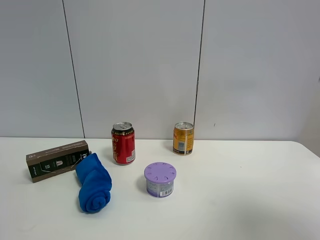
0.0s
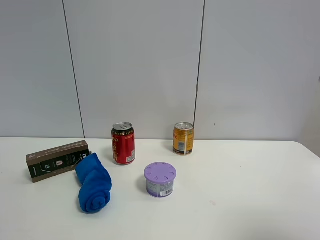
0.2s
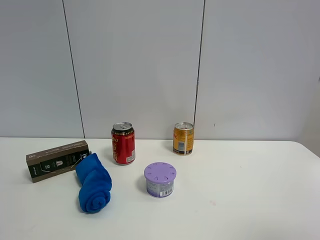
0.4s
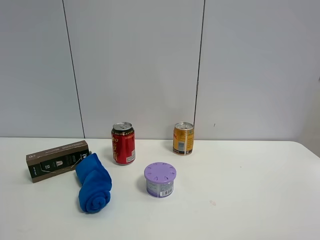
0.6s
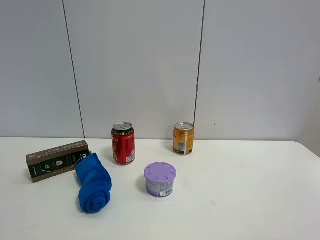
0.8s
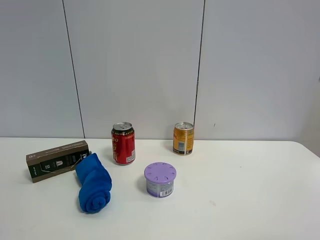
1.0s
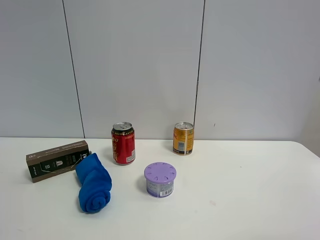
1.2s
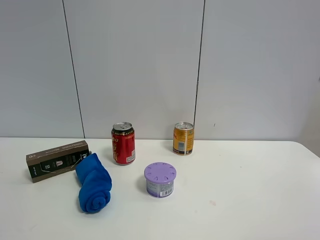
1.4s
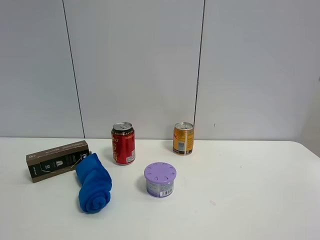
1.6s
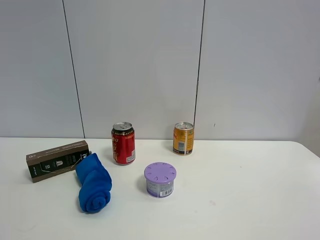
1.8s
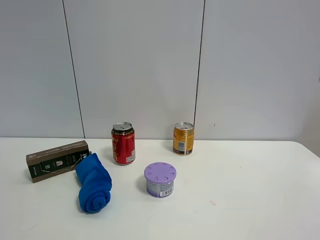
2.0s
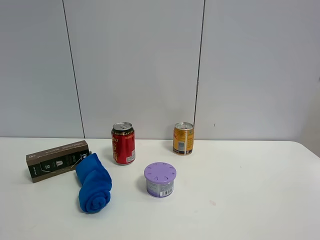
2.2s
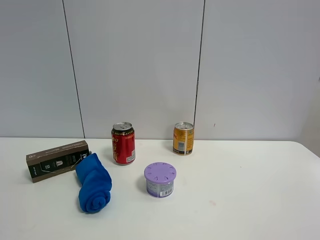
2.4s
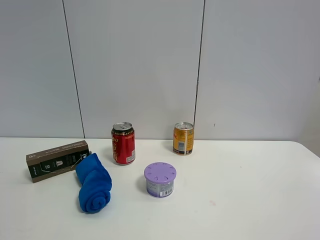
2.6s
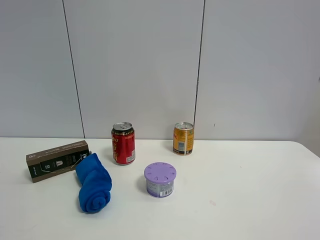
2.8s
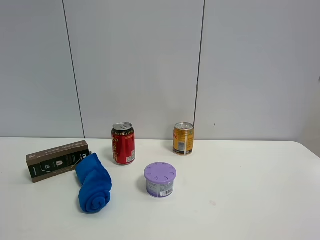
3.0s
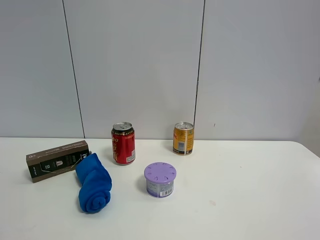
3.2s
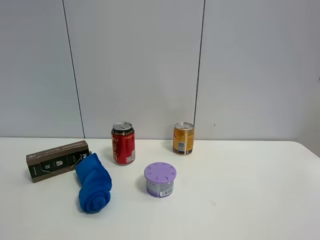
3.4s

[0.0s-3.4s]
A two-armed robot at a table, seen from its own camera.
Task of the whole recording: the gripper move the object.
0.0s to 1.6s: The right gripper shifts roughly 15 cm backward and downward.
1.6s to 3.4s: The two grippers keep their place.

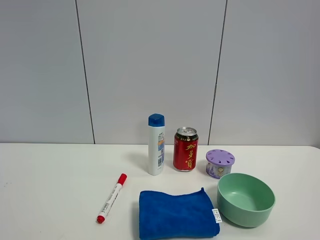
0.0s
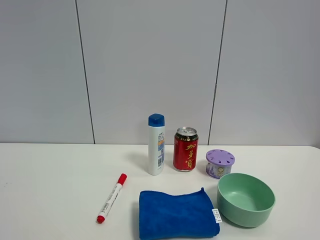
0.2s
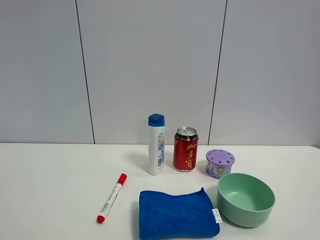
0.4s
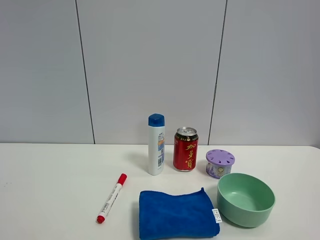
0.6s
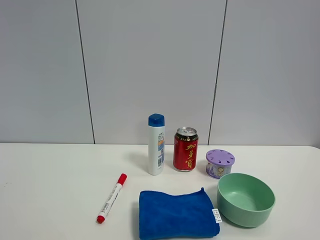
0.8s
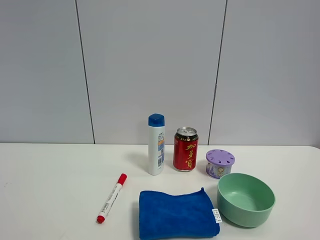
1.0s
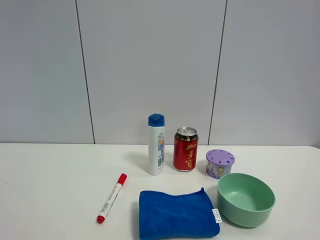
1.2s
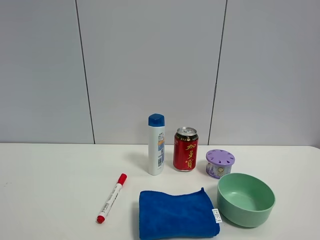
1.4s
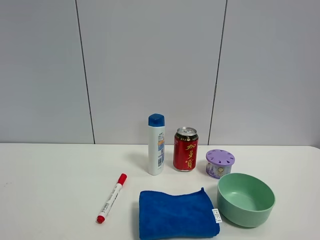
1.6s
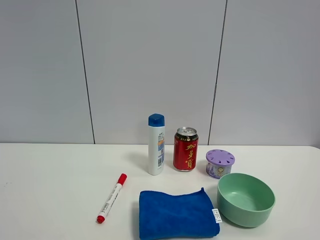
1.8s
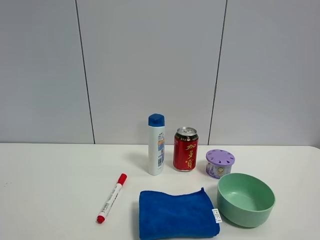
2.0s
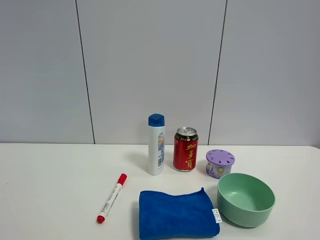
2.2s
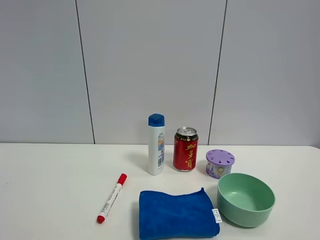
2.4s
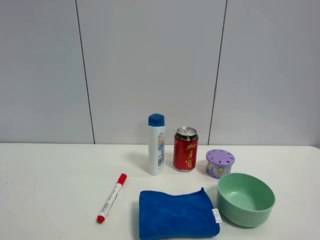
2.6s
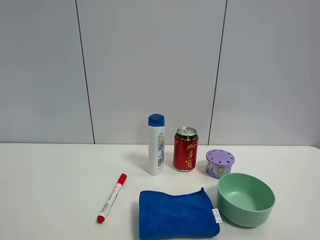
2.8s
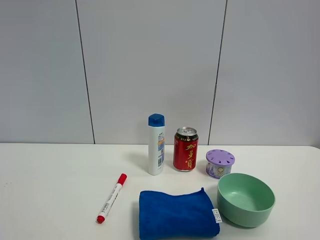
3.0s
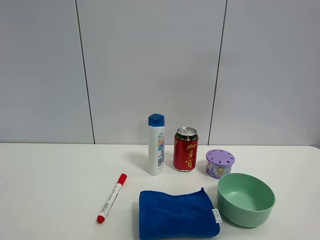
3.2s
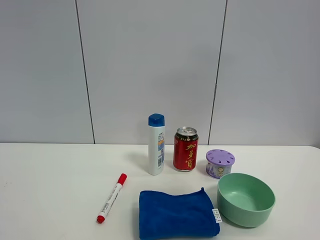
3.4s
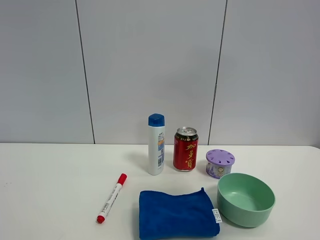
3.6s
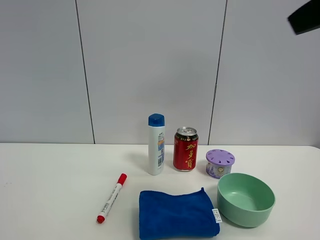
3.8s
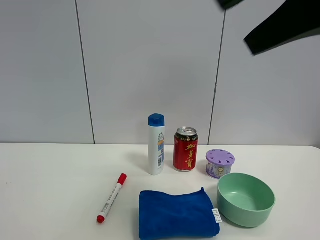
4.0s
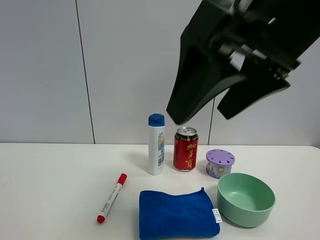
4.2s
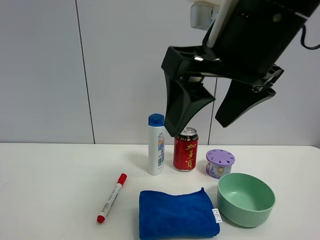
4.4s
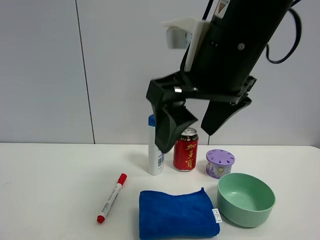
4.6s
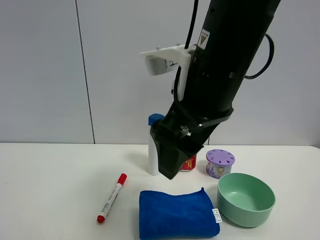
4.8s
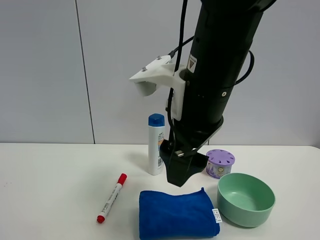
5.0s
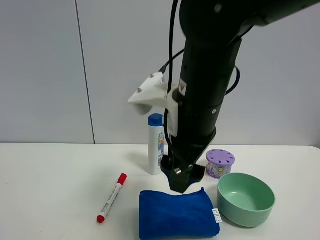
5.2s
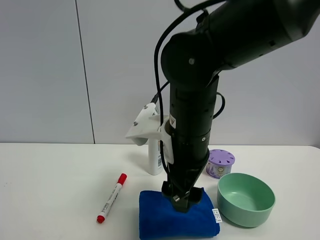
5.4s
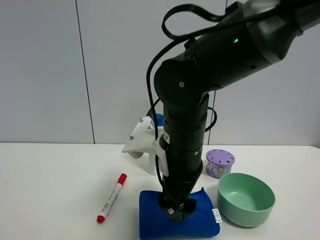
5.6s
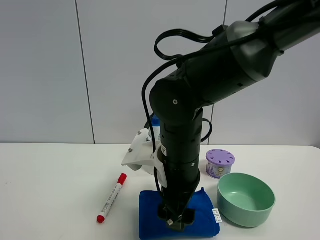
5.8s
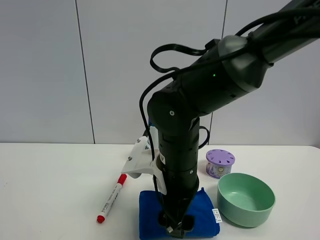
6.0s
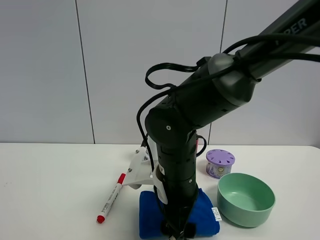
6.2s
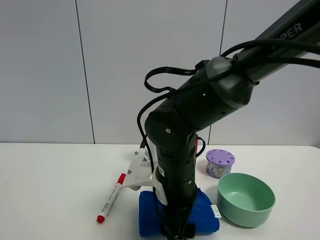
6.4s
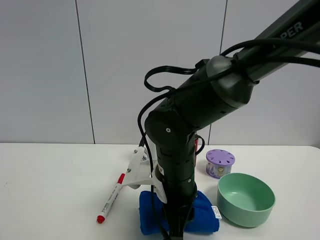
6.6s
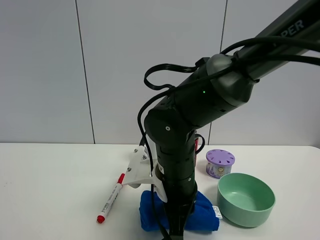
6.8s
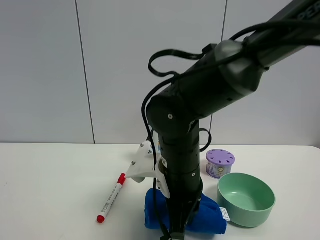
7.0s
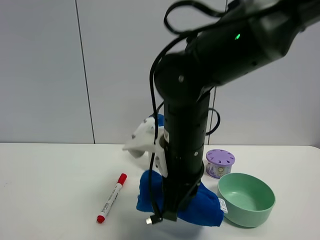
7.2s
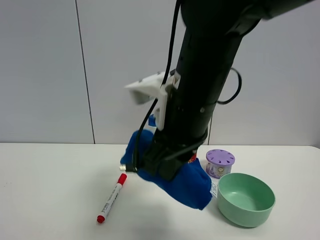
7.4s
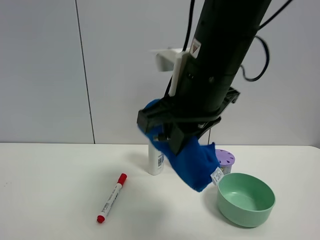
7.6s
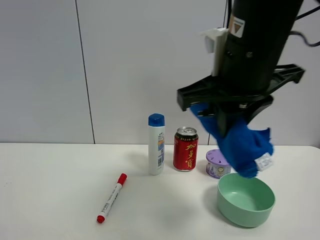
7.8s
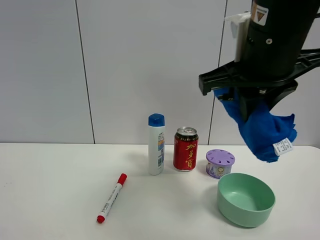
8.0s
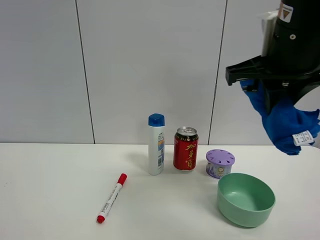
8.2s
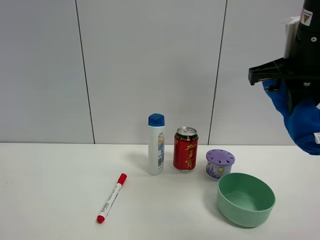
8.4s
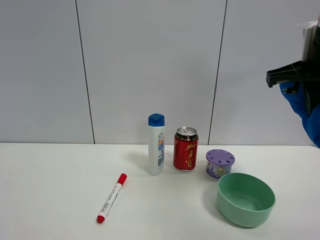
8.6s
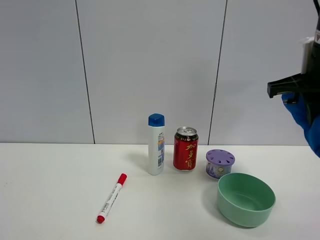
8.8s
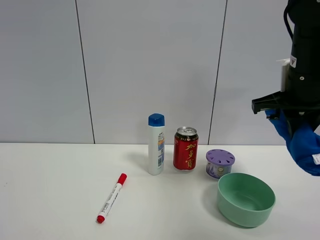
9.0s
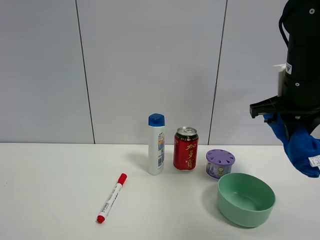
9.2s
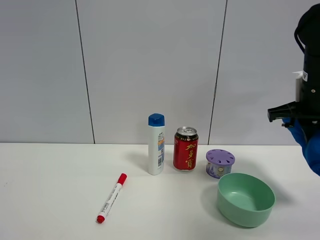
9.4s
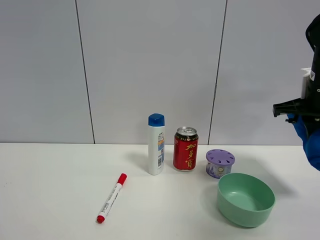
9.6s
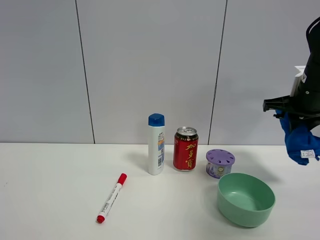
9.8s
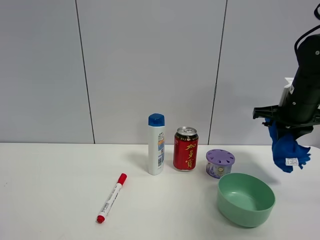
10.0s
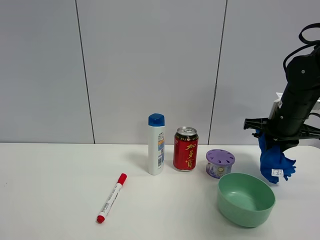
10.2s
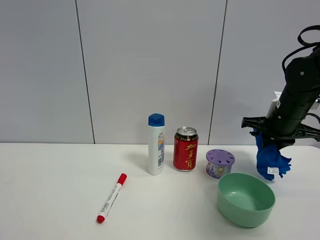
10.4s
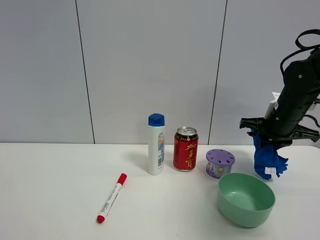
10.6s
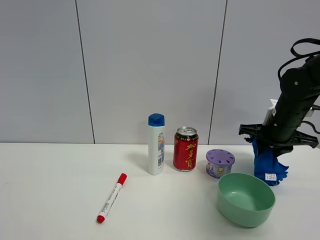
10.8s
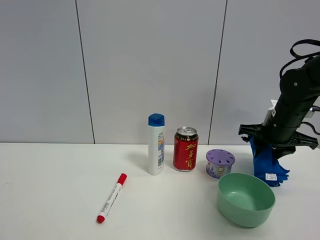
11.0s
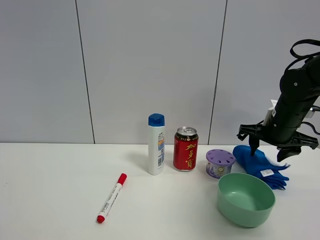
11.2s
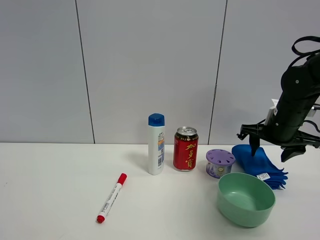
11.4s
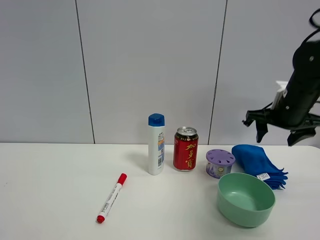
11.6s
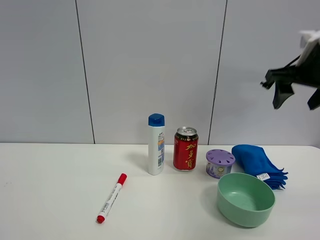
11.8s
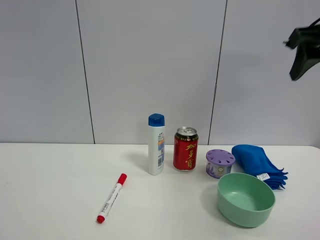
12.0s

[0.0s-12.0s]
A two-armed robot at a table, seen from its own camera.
Task of the whole recording: the gripper move the object.
Step, 0.0s to 6.8s: Grasp the blue towel with the right gripper.
Step, 7.0s to 11.2s: Place the blue towel on the table with the right gripper.
0.0s to 1.6s: Both grippers stay about where they are.
1.6s to 3.0s: The right gripper goes some 15 cm upward.
3.0s to 4.4s: The right gripper travels to the left, forward and downward by approximately 25 cm.
4.4s to 6.0s: The right gripper travels downward by roughly 20 cm.
6.0s to 7.6s: The right gripper goes approximately 15 cm upward, and closes its fingers.
7.6s to 9.0s: The right gripper shifts some 20 cm to the right and forward.
9.0s to 10.4s: The right gripper shifts roughly 10 cm downward and forward.
10.4s to 12.0s: The right gripper goes some 25 cm upward and backward, and opens up.

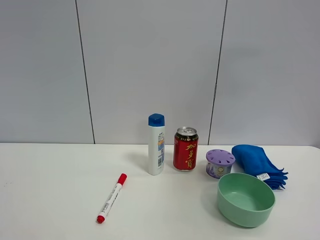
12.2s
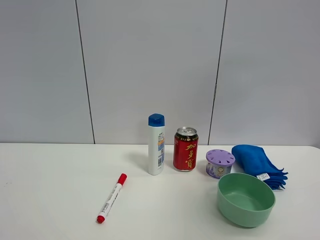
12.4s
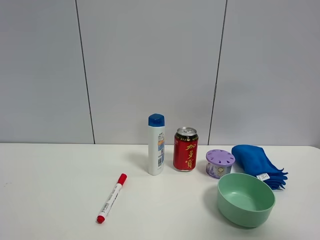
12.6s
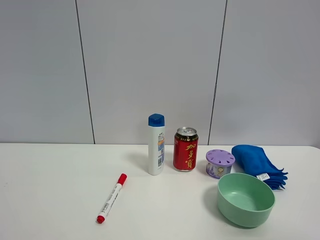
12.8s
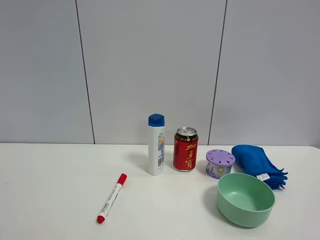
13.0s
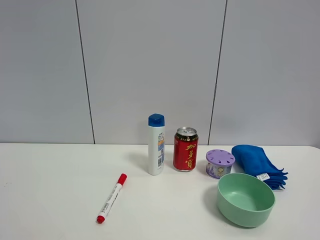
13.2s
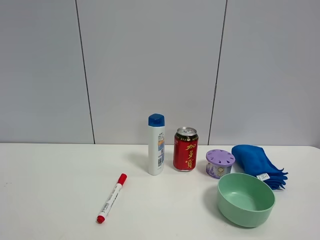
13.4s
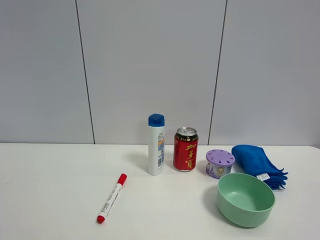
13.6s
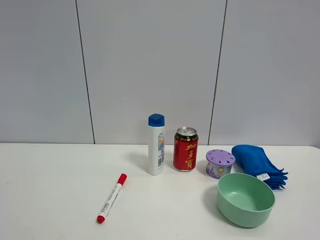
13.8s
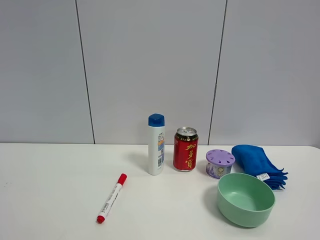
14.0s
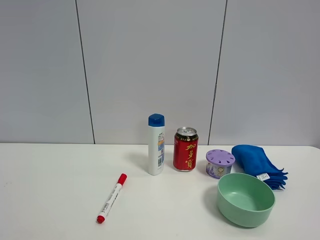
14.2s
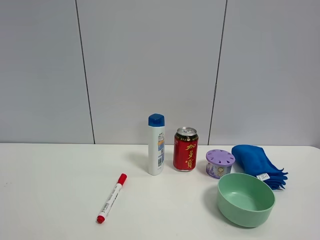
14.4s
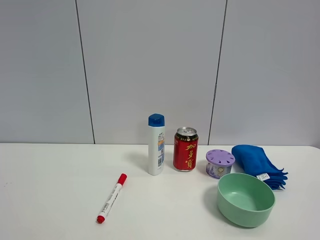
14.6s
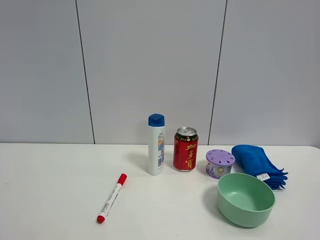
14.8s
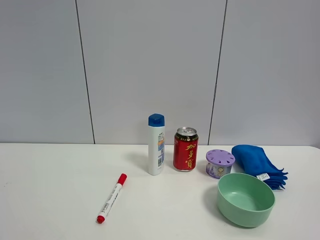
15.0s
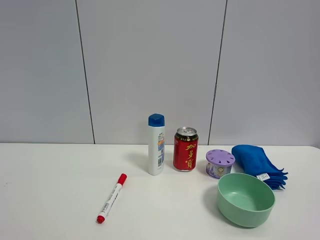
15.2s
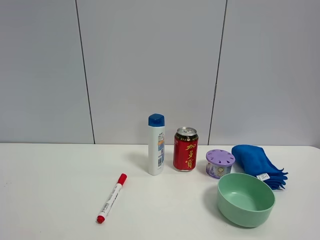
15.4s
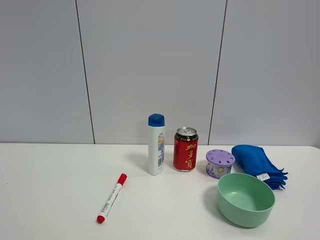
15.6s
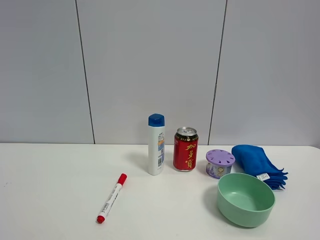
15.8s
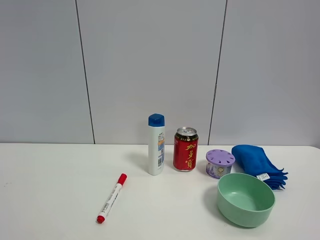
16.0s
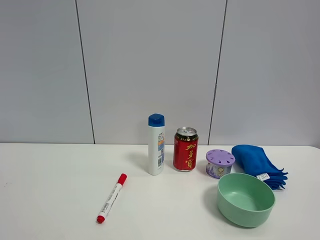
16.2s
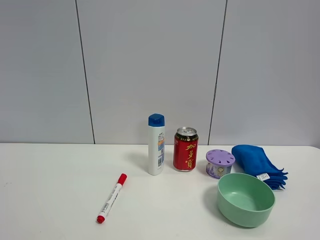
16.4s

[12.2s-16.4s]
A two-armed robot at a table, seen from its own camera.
Task of the whole recording: the gripper move the object.
12.2s to 13.6s: The right gripper heads backward and downward, covering about 25 cm.
13.6s to 16.4s: Both grippers stay put.

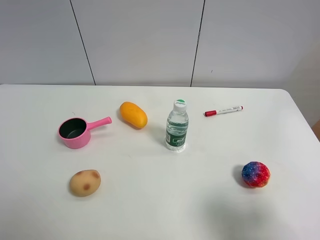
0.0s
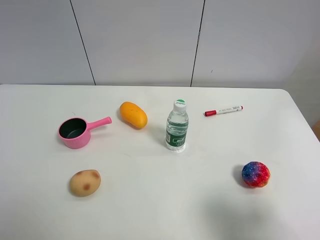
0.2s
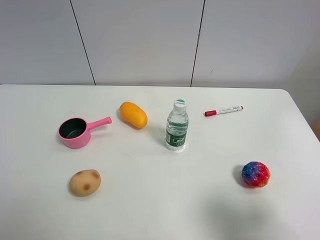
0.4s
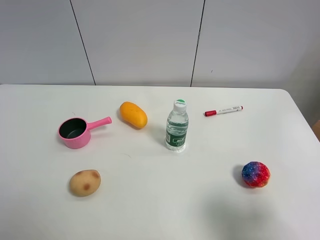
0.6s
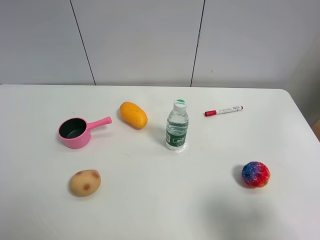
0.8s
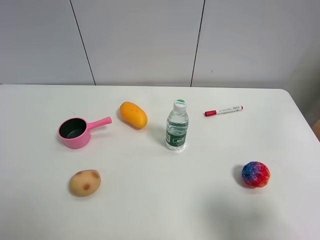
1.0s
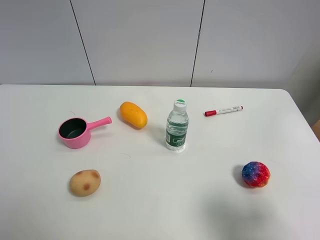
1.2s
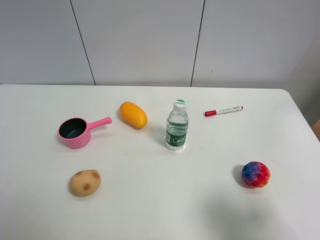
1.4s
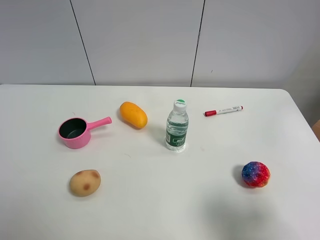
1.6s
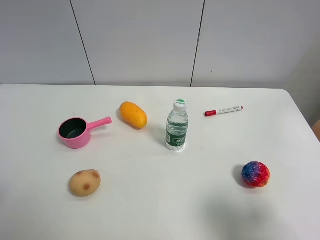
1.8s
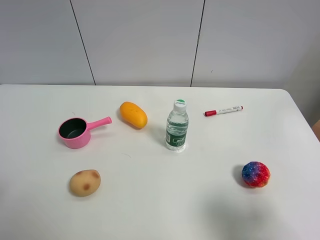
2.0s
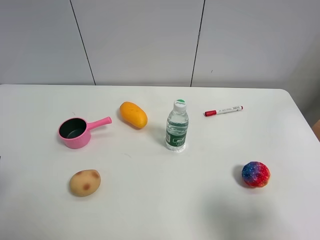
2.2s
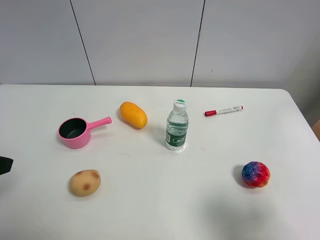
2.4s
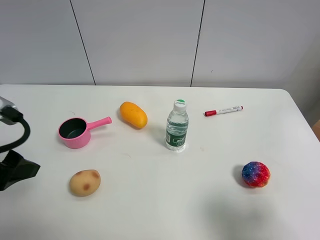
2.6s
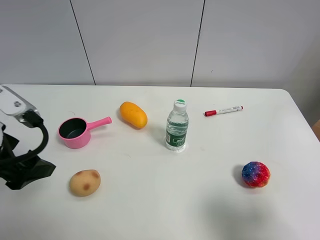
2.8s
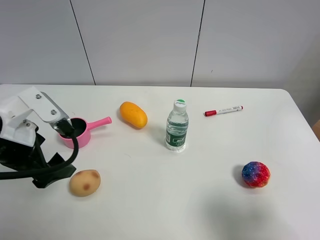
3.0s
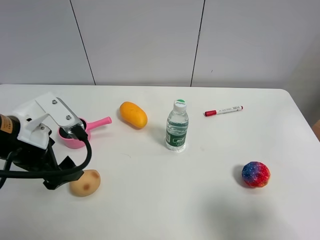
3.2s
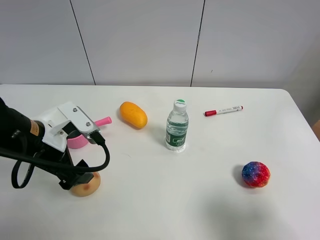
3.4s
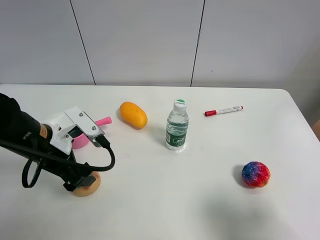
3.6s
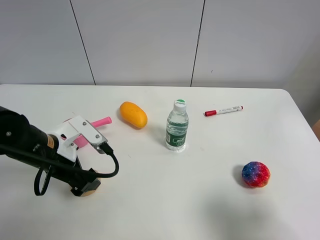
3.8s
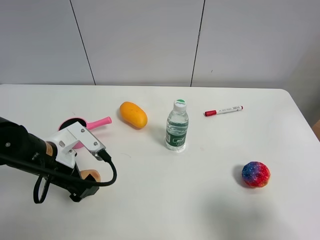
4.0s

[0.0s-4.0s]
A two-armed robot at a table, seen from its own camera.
Task of the whole recording: the gripper move the object.
0.0s to 1.4s: Both grippers stay put.
1.4s to 2.6s: The left gripper travels forward by approximately 15 cm.
2.6s to 4.0s: The left gripper shifts approximately 15 cm downward and to the right.
